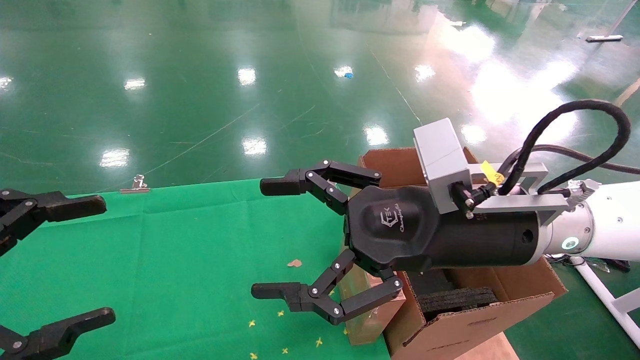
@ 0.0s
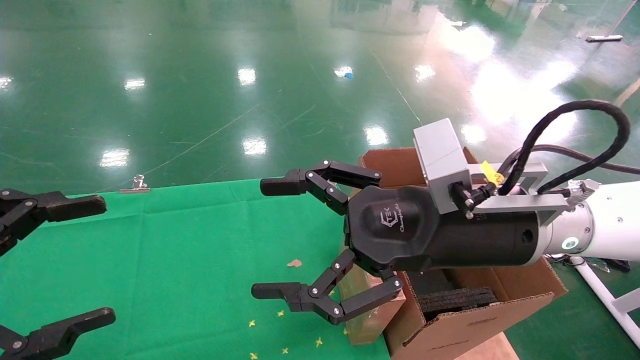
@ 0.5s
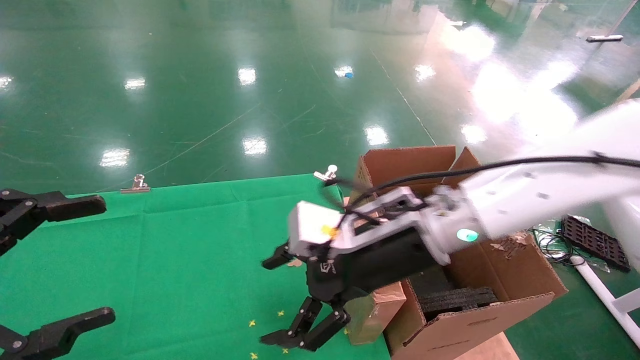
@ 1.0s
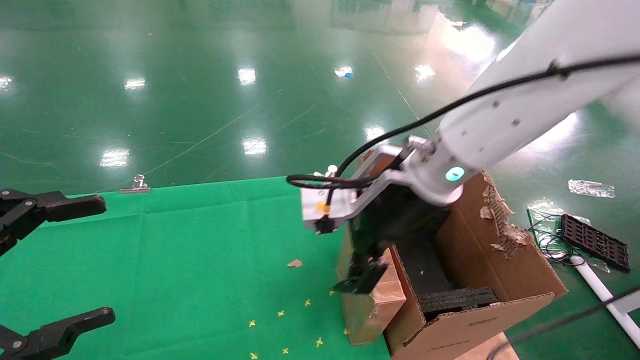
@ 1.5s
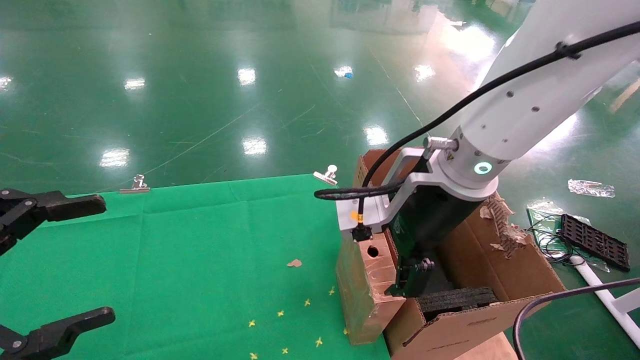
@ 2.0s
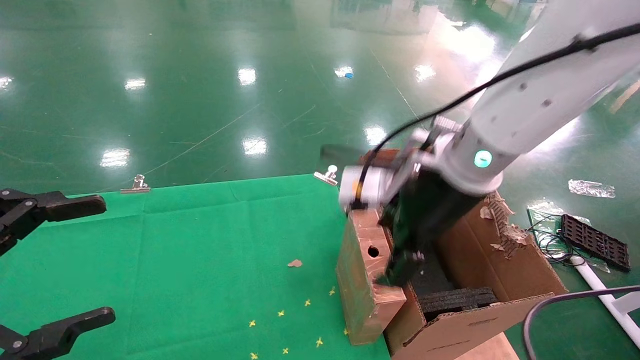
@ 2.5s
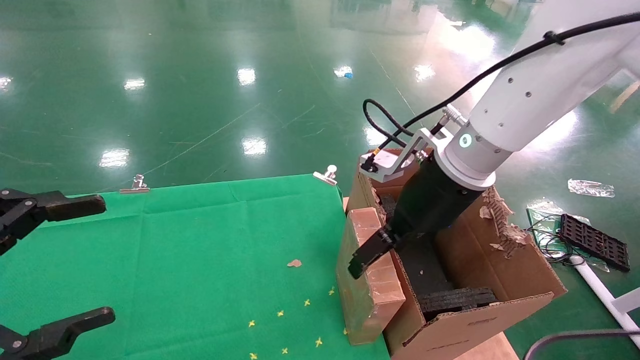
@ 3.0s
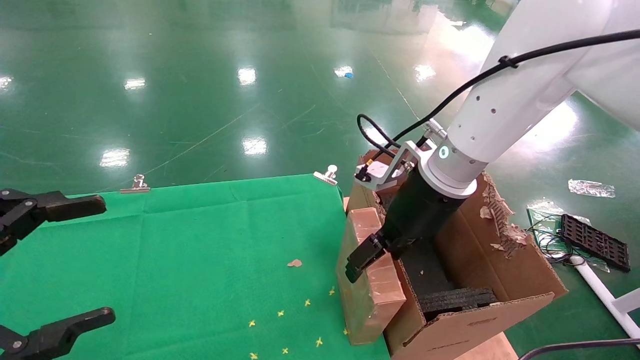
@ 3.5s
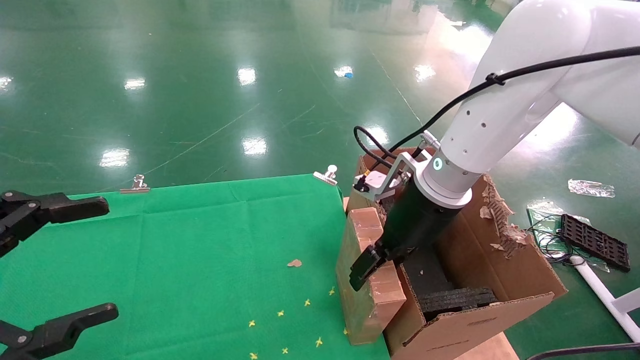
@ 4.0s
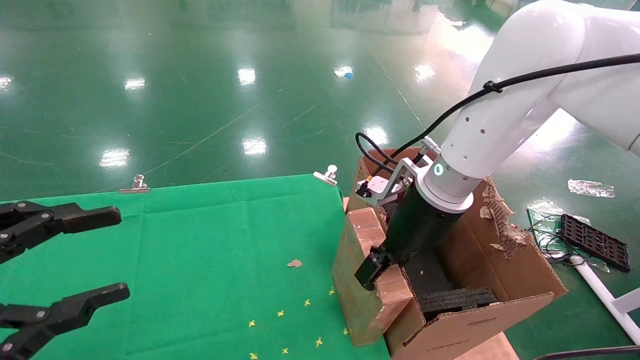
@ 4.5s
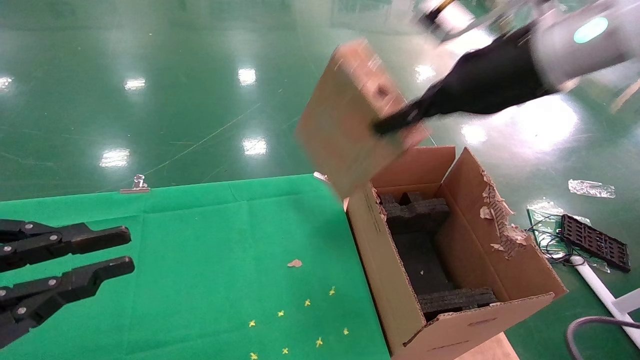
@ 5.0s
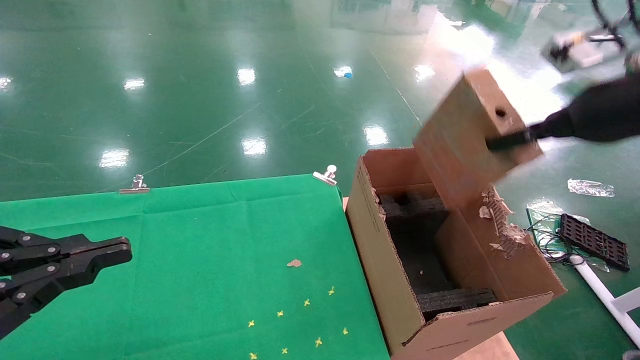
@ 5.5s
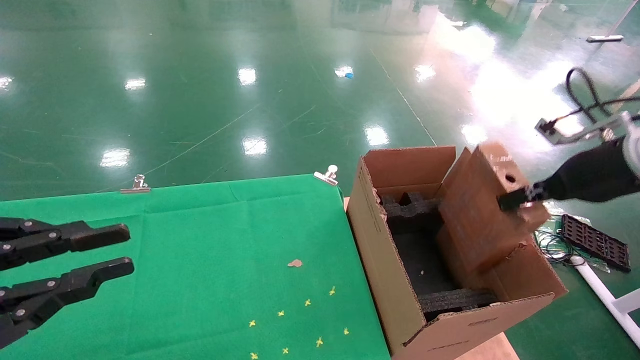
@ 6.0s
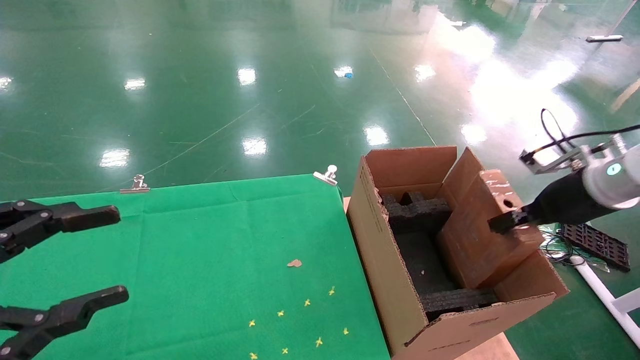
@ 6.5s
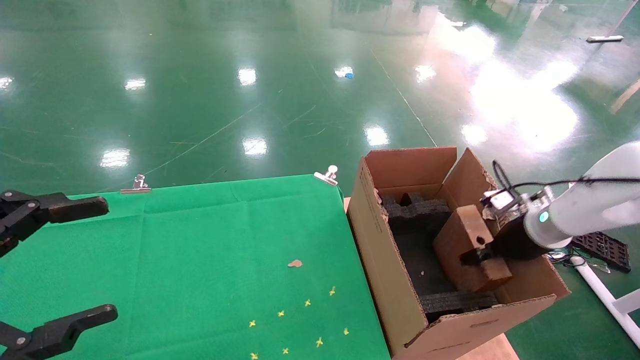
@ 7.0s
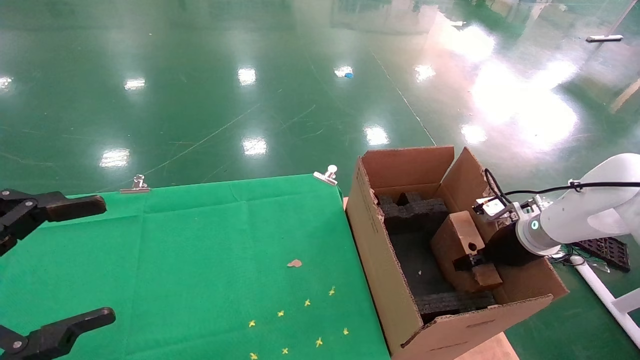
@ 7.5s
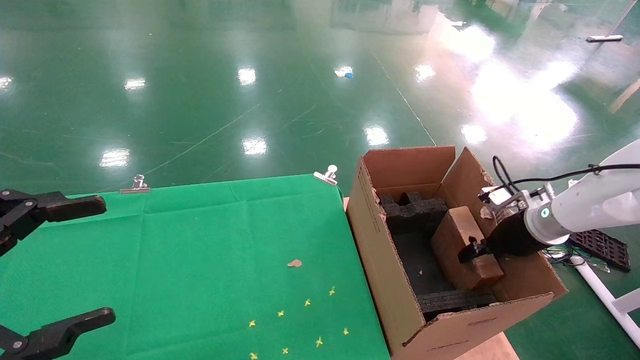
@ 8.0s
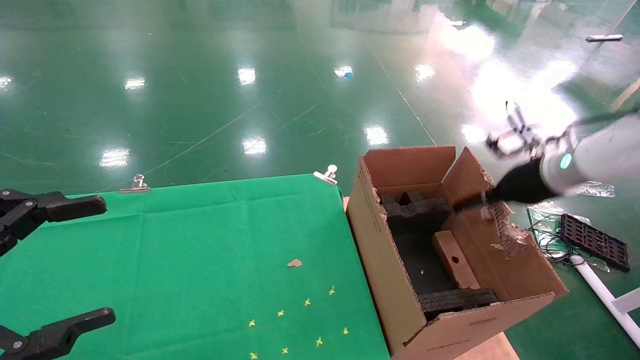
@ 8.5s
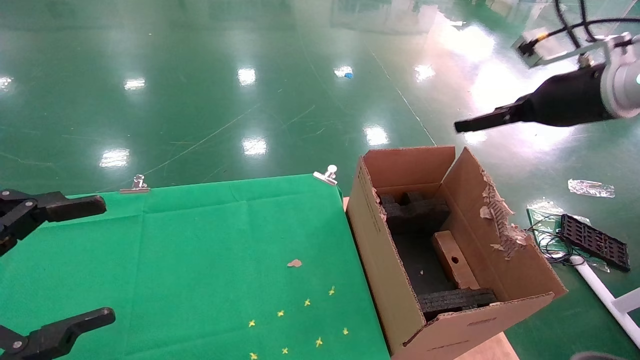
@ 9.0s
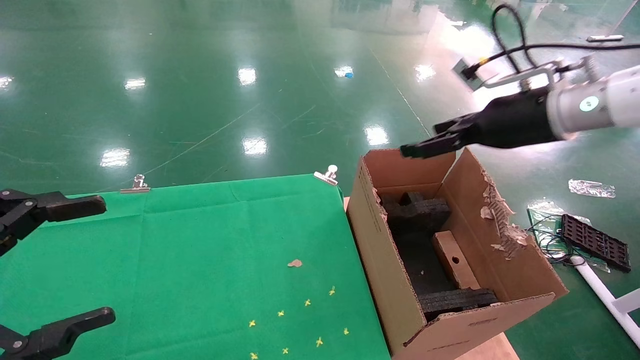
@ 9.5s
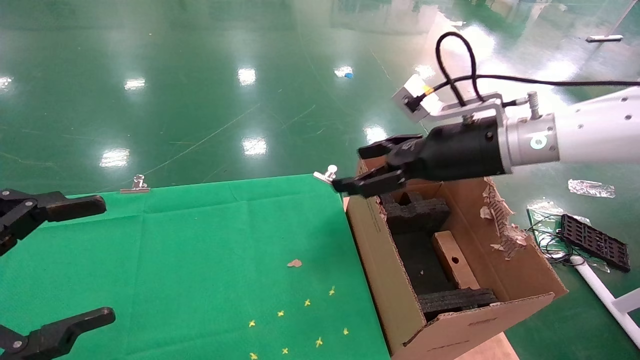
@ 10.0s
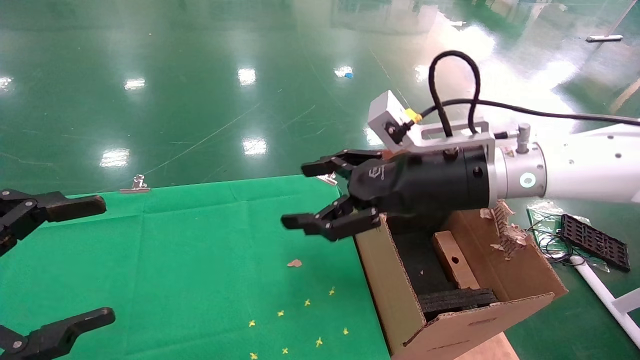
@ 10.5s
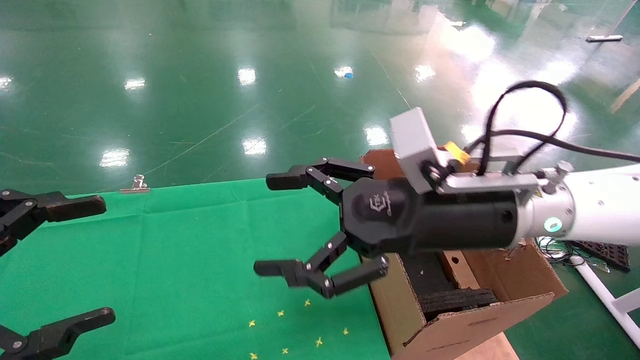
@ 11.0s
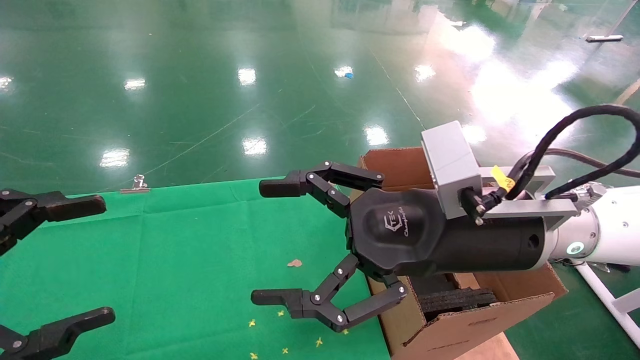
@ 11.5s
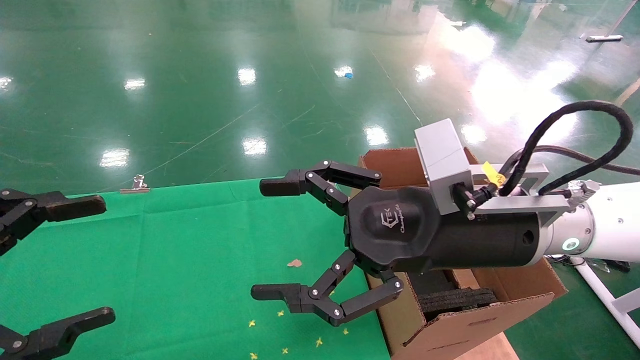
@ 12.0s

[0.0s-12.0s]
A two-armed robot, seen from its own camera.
Task of the whole recording: using a robotic arm to pick up a cardboard box and palace it the carton.
Step, 1.0s to 5.0s: Pick up the mouse and the power cord paper box.
Step, 5.5s to 9.0s: Place the mouse and the power cord paper box into the container.
0.0s to 2.0s: The right gripper moves forward, roughly 5 cm.
2.0s to 4.0s: The right gripper travels forward by roughly 5 cm.
4.0s to 6.0s: The left gripper closes its fingers. Meanwhile the right gripper goes approximately 25 cm to the right, and closes.
6.0s to 8.0s: The right gripper heads downward and forward, covering approximately 15 cm; the left gripper opens its fingers.
8.0s to 10.0s: The right gripper moves to the left and upward, approximately 25 cm, and opens its fingers.
10.0s to 12.0s: The right gripper goes some 15 cm backward and to the left.

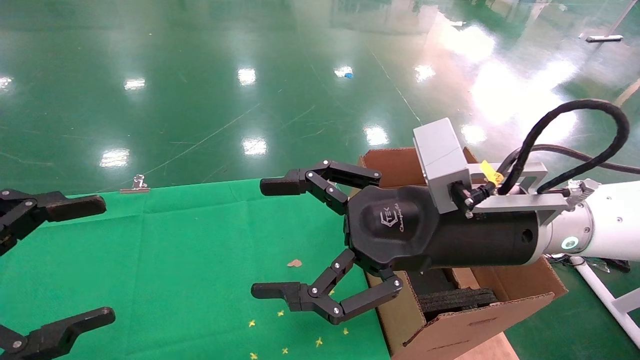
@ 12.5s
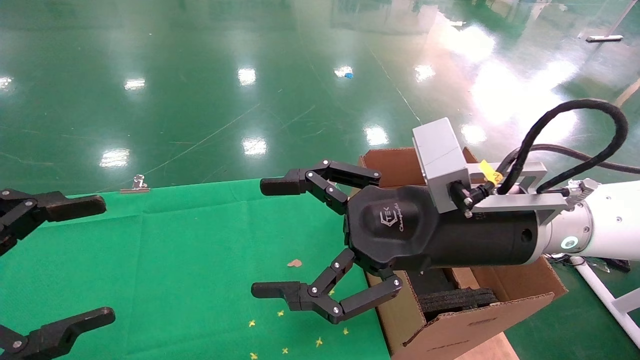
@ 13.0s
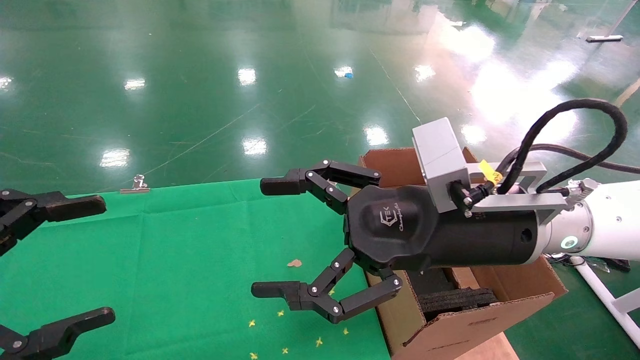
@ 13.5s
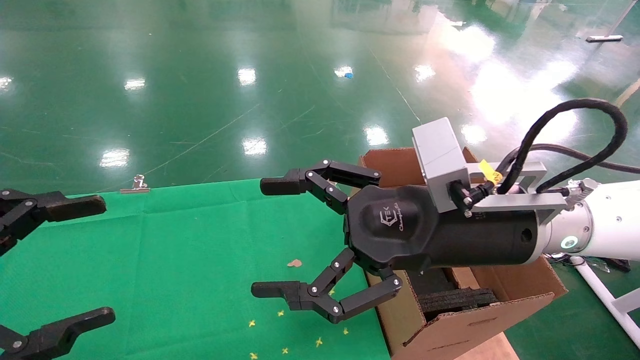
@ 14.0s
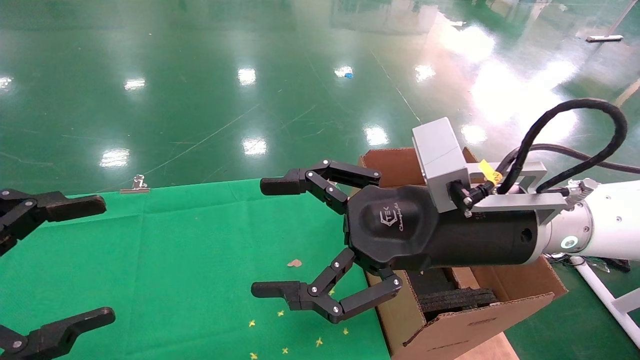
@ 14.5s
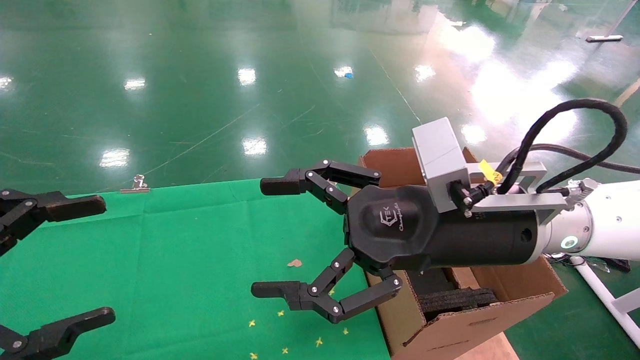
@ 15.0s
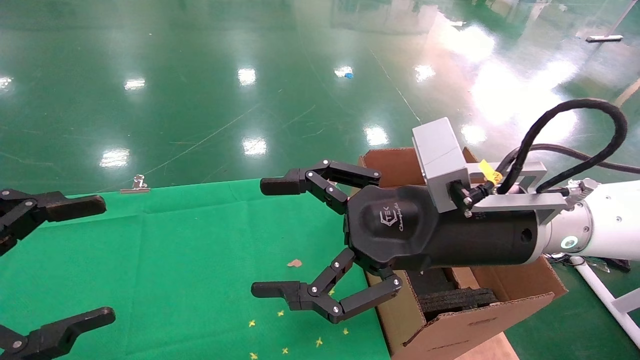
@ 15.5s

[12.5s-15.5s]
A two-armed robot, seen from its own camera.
Task of the whole recording: using a robotic arm to pick up a cardboard box and palace it the carton.
12.5s to 15.5s: Both grippers stay about where they are.

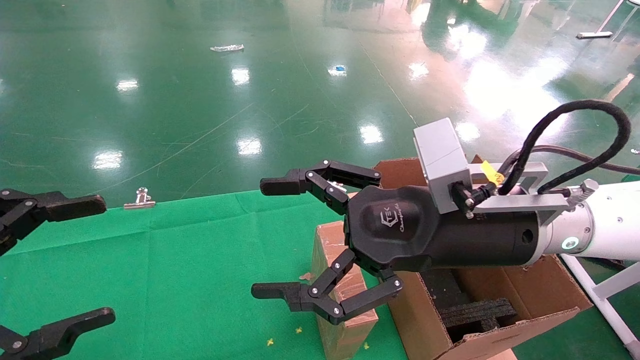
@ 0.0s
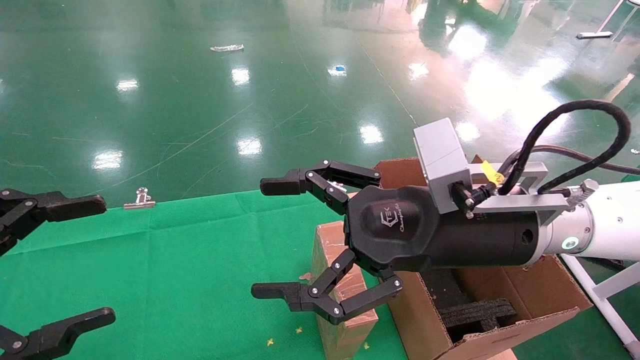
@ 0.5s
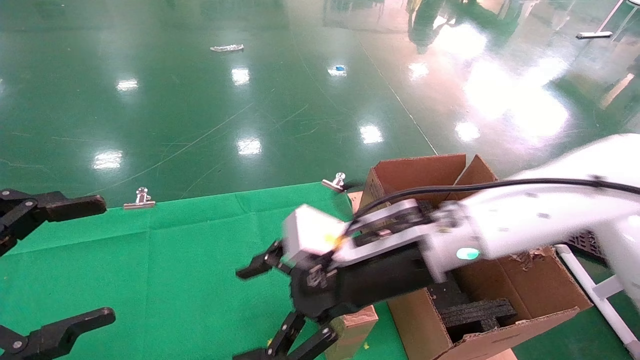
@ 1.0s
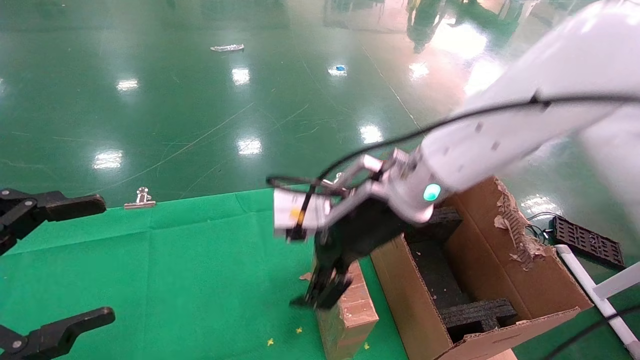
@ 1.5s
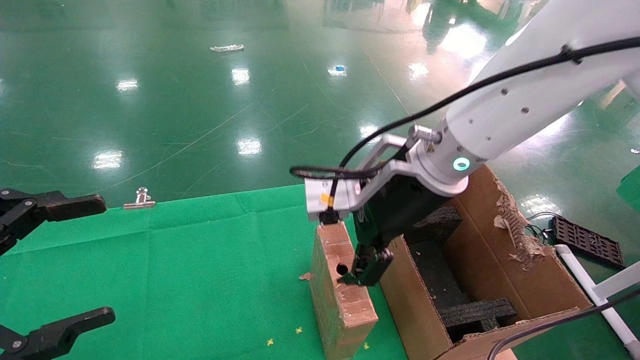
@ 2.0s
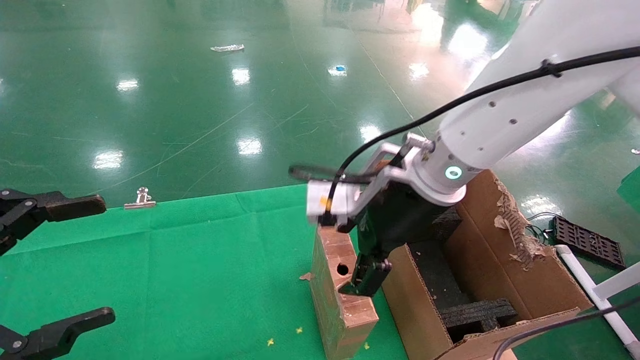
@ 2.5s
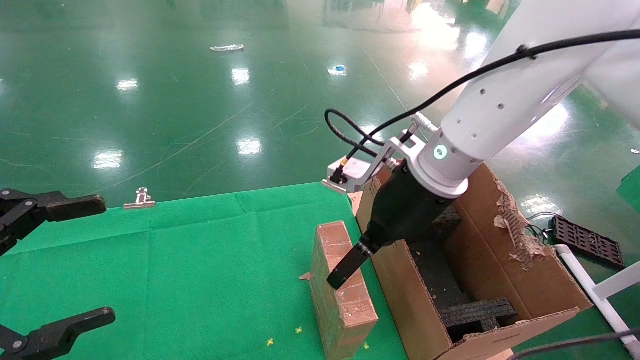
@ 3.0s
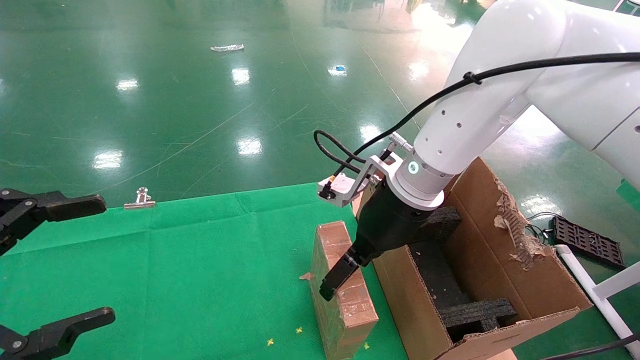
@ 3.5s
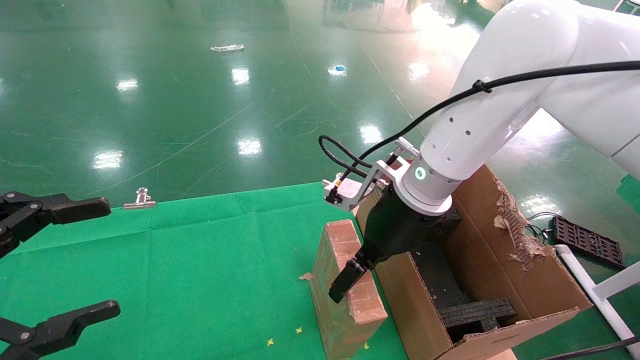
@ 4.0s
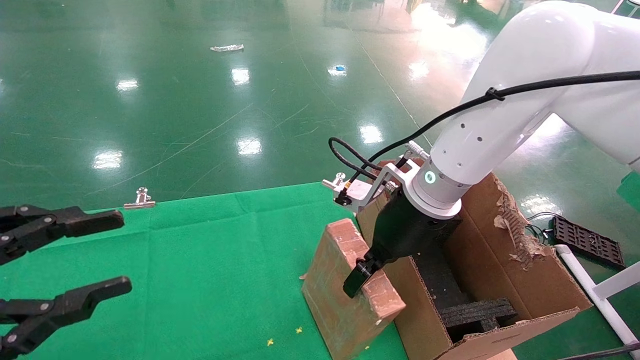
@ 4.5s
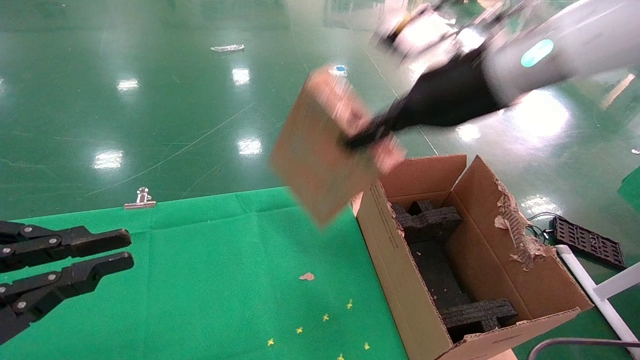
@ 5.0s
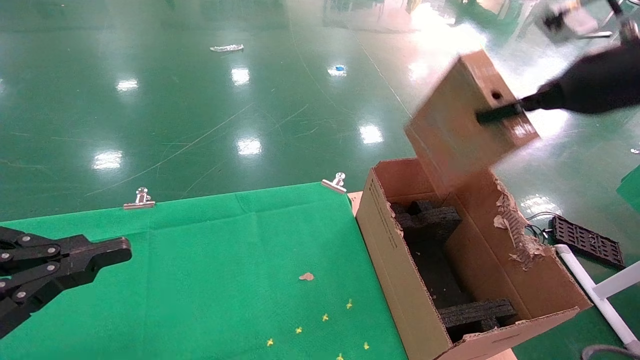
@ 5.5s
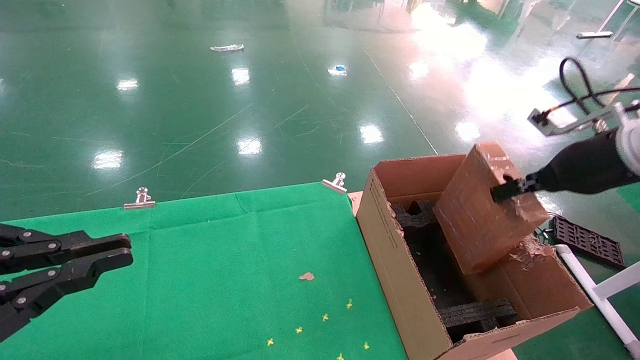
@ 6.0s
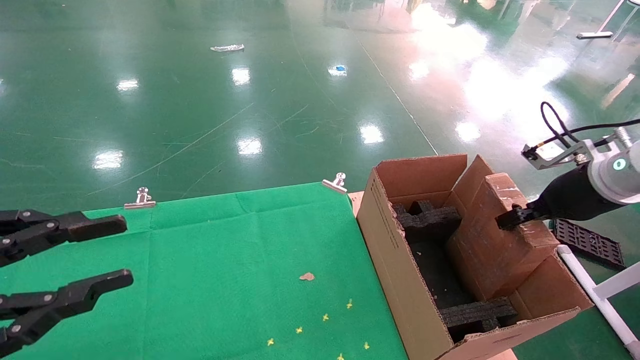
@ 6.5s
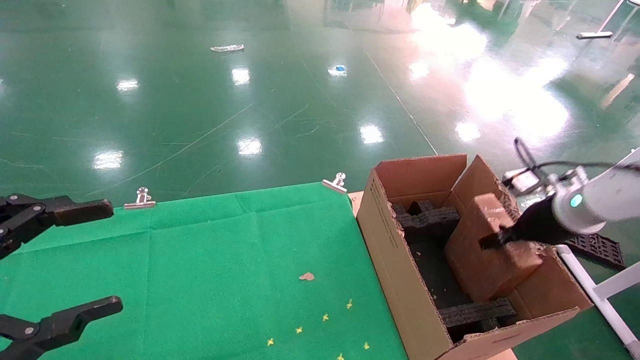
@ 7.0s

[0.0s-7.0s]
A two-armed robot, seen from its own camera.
Task of the whole recording: using a robotic arm to pick up a cardboard box and palace it the carton.
Step, 1.0s to 4.5s: Pick up the mouse and the power cord paper box.
0.0s to 2.0s: The right gripper travels forward by some 5 cm.
2.0s to 3.5s: The right gripper moves some 5 cm.
3.5s to 5.0s: The right gripper travels upward and to the right by roughly 15 cm, and closes. The left gripper closes its fingers.
5.0s to 7.0s: The left gripper opens its fingers. Meanwhile the right gripper heads to the right and downward, covering roughly 30 cm.
